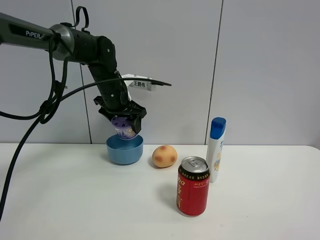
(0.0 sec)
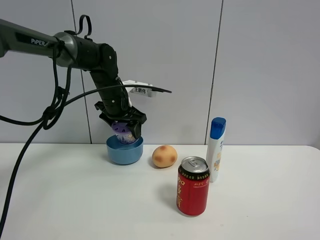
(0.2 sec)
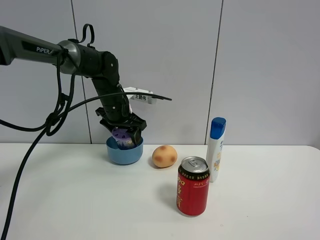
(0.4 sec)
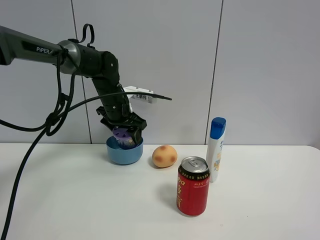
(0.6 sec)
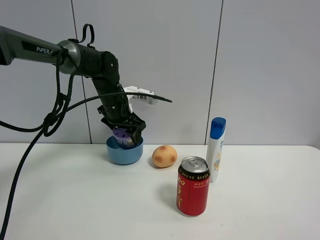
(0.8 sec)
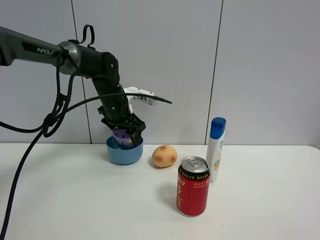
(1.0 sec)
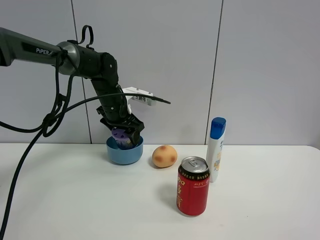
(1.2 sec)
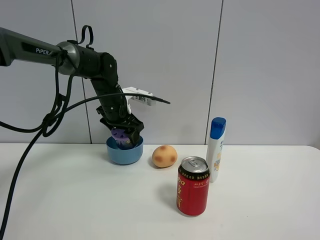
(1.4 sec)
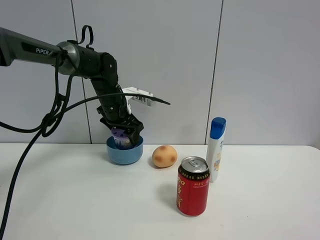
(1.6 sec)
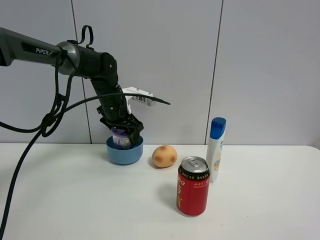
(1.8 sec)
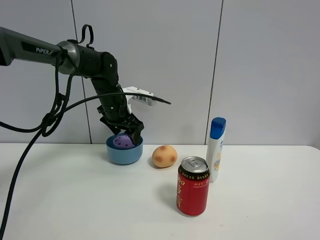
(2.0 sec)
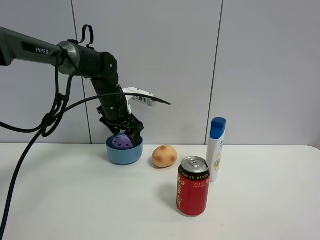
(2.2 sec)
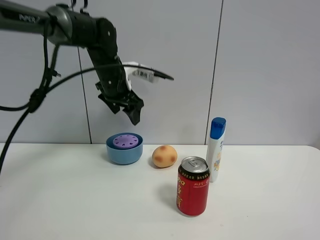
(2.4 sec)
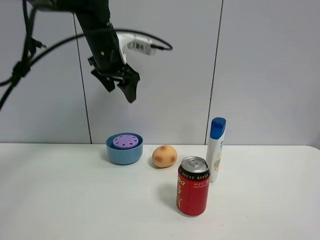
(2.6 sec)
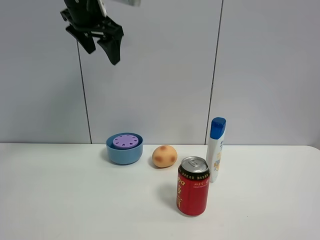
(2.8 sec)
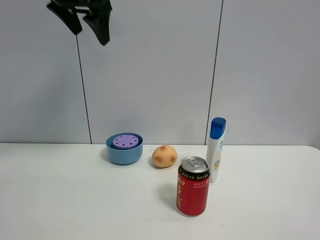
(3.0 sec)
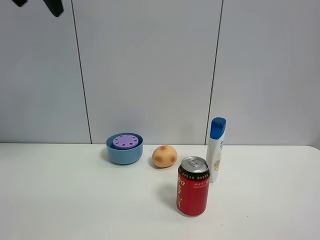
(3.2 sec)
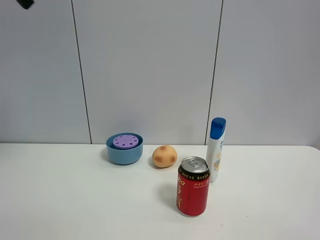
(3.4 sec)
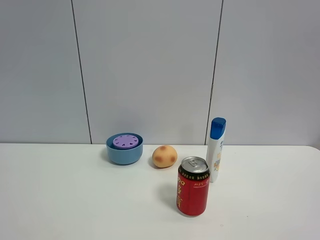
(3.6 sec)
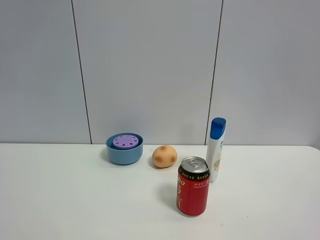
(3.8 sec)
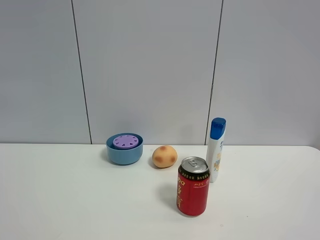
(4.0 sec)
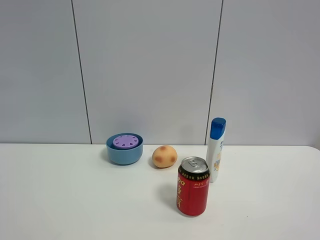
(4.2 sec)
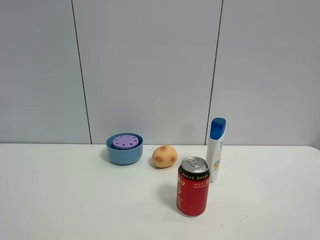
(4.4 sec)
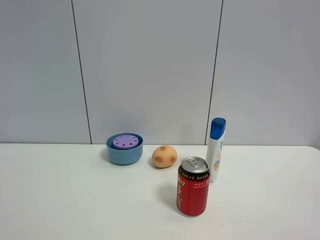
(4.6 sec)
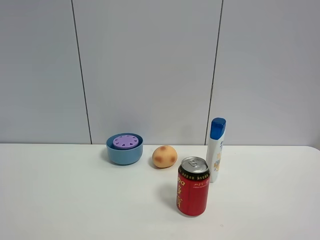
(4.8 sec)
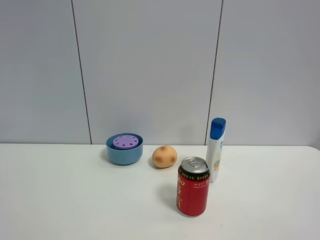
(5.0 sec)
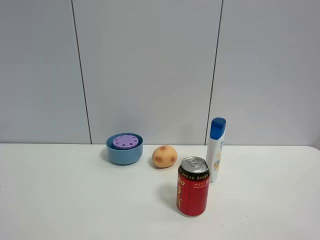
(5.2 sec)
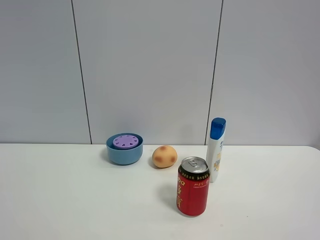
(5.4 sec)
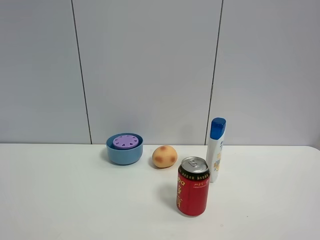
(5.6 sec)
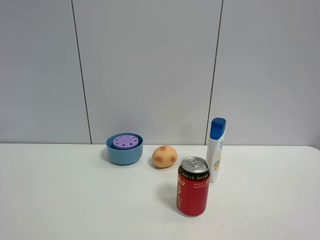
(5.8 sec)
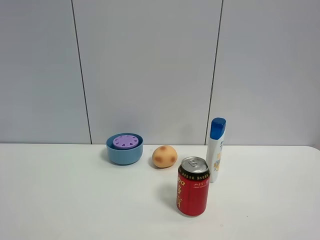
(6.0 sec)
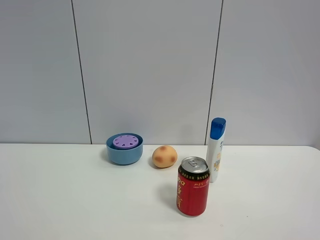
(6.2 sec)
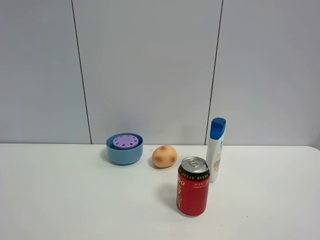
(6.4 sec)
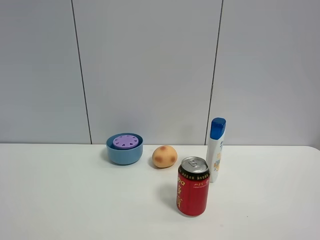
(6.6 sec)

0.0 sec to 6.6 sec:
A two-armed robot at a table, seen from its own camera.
Task of the whole recording: the gripper move the object.
Step, 0.0 sec to 2.0 sec: Place the blue bowl into the blue bowl with the left gripper.
0.0 sec to 1.6 sec: The grippers stay close to where they were, moving slightly.
1.6 sec to 3.2 sec: The left gripper is displaced upward and backward by some 35 cm.
3.2 sec to 5.0 sec: The left gripper travels backward and downward by about 40 cm.
5.0 sec to 6.6 sec: Both grippers stay about where they are.

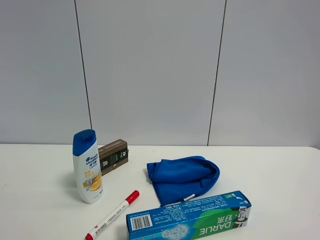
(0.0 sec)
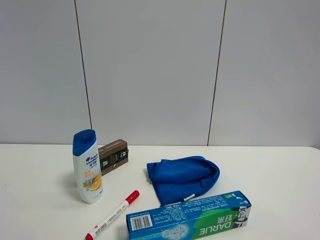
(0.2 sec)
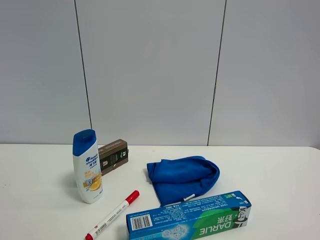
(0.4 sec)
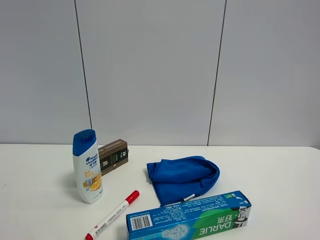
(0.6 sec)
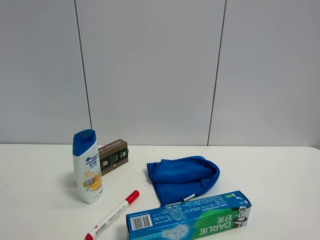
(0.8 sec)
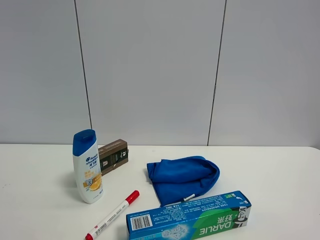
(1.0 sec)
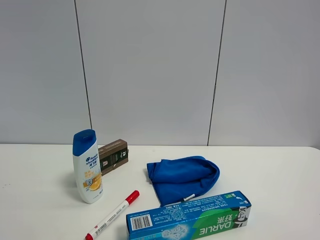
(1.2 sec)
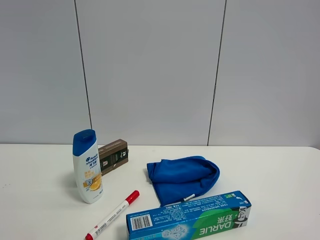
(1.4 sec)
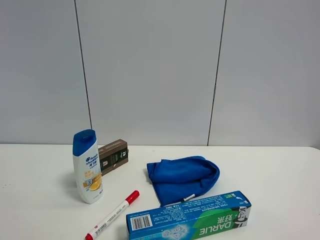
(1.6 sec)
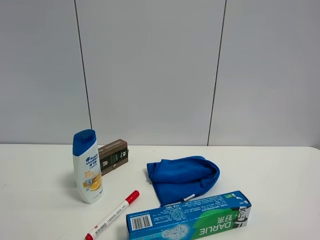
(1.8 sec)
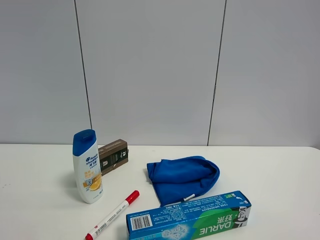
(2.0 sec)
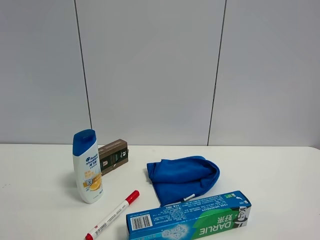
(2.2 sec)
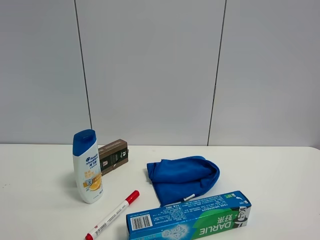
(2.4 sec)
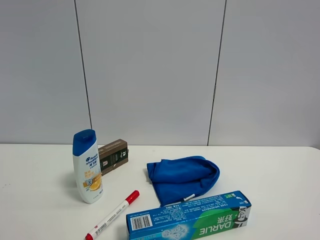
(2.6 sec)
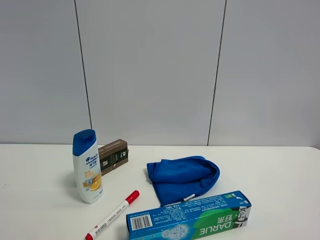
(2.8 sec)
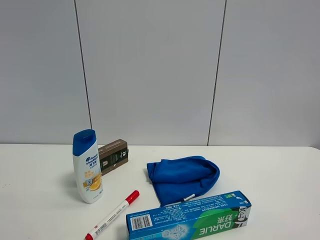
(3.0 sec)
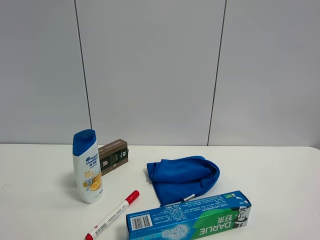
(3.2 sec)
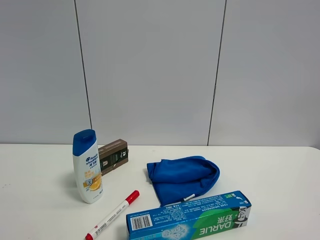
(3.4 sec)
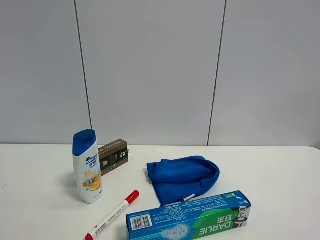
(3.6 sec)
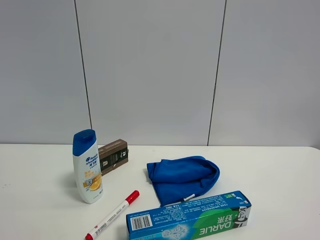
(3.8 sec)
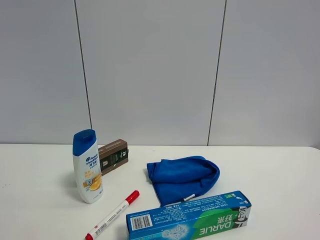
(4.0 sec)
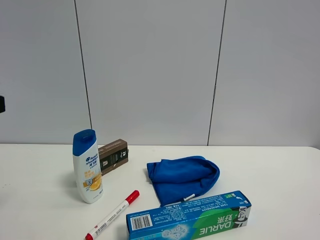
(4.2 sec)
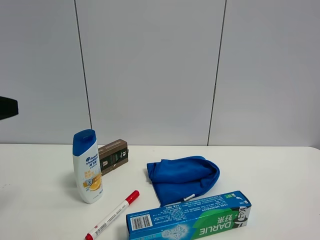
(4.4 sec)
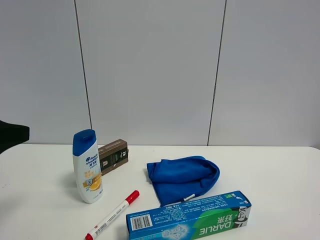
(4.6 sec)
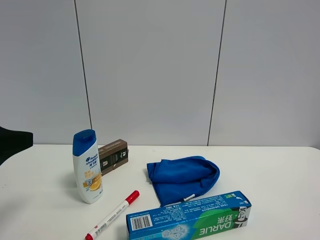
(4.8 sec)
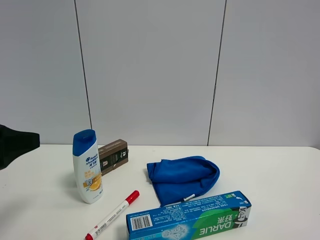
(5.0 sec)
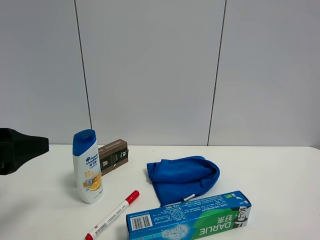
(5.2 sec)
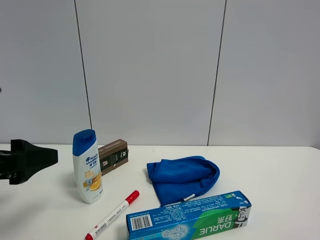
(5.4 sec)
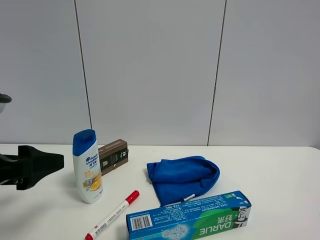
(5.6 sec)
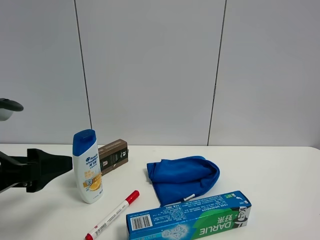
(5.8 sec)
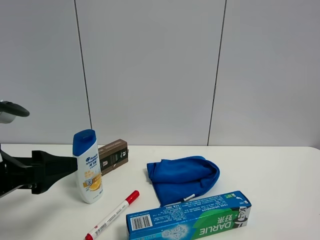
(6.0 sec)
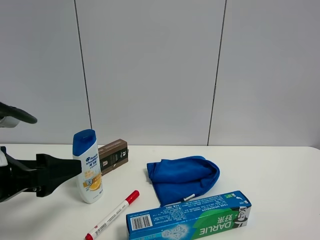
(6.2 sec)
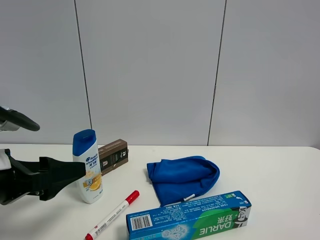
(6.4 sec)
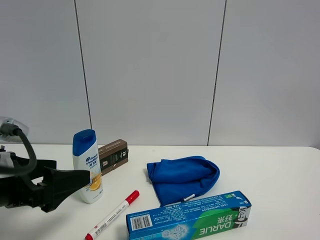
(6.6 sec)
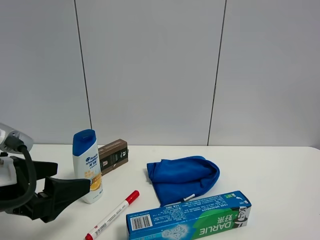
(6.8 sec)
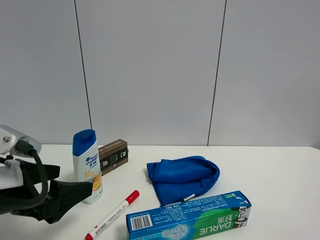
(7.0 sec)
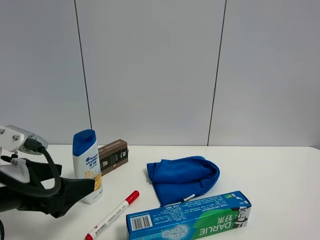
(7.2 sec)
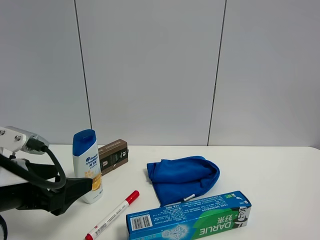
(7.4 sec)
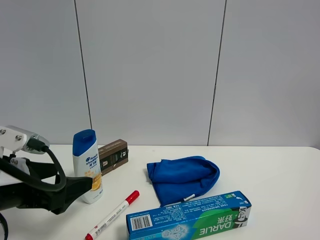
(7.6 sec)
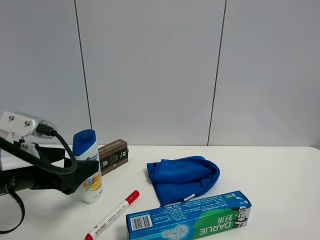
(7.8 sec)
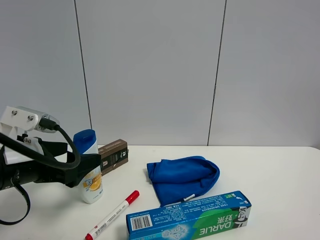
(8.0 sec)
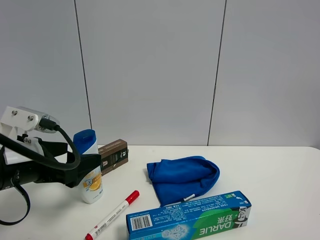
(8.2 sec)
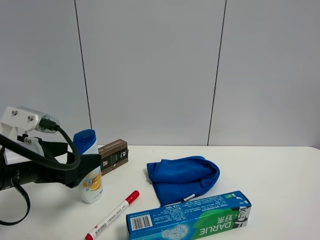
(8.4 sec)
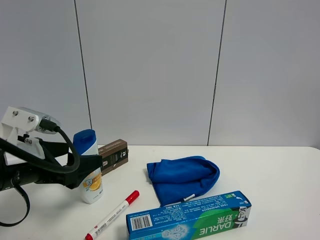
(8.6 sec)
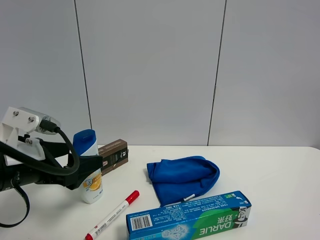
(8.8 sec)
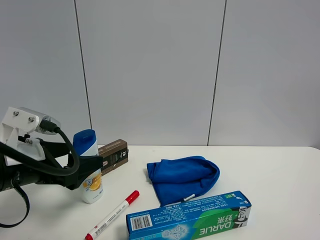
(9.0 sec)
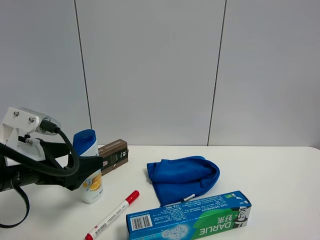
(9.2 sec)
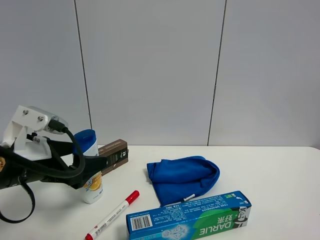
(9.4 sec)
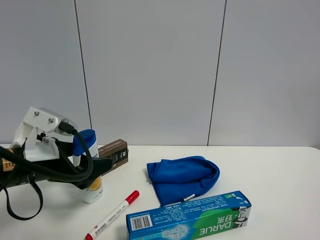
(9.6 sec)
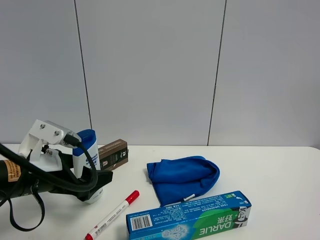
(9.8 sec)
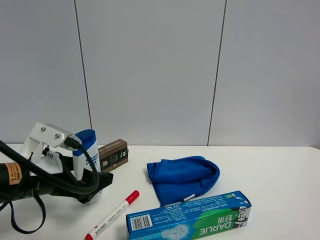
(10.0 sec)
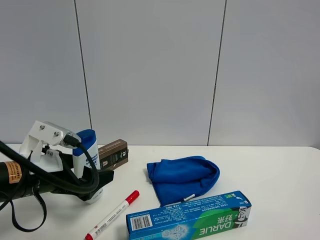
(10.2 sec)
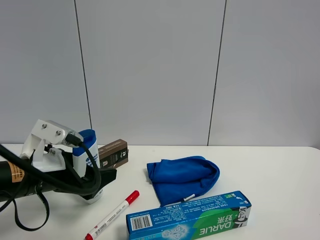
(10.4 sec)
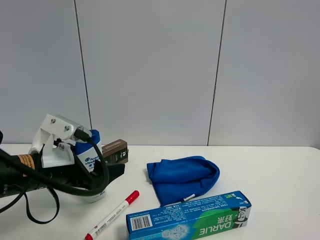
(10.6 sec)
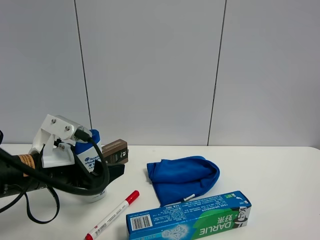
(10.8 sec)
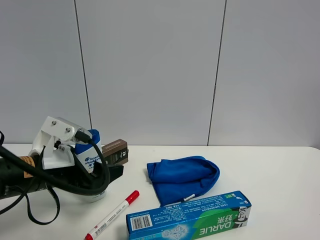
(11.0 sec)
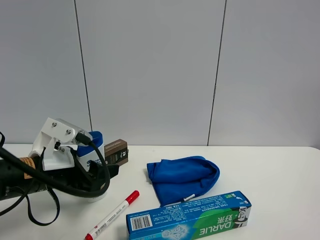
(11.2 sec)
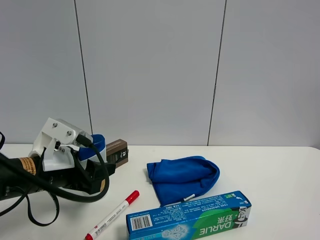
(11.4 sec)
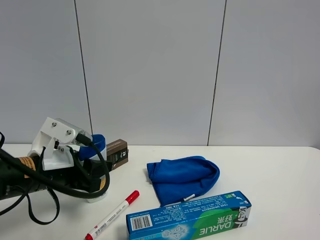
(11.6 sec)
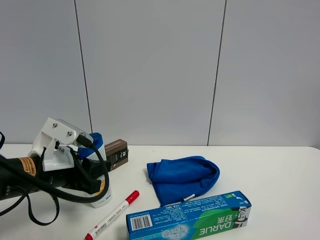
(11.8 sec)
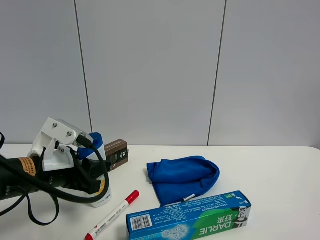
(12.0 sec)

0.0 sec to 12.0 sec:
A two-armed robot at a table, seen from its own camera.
Task of the whole recording: the gripper move the object.
Step, 0.0 sec to 11.6 sec: Grasp the shampoo with the left gripper.
4.4 sec to 6.0 sec: The left gripper shifts approximately 10 cm downward.
6.0 sec to 9.0 sec: The grippers make only small movements.
9.0 sec to 10.4 sec: There are only small adjustments of the grippers.
10.4 sec to 12.0 sec: The left gripper closes its fingers.

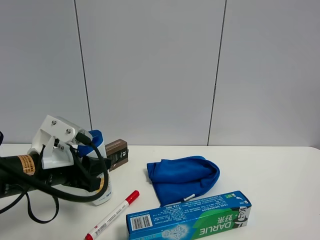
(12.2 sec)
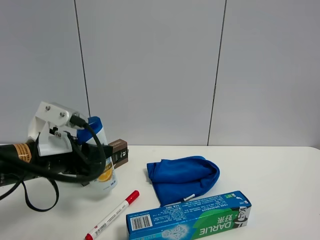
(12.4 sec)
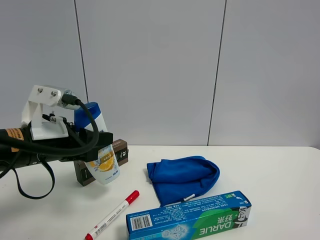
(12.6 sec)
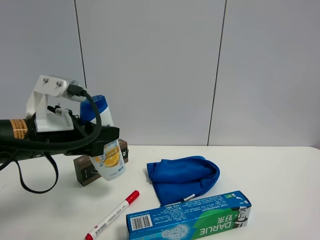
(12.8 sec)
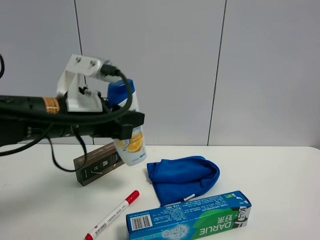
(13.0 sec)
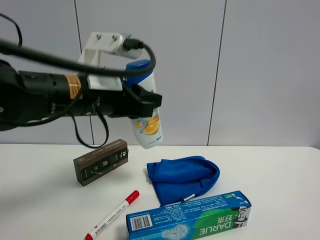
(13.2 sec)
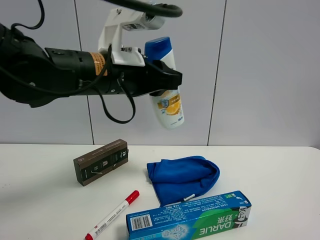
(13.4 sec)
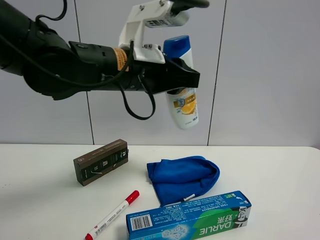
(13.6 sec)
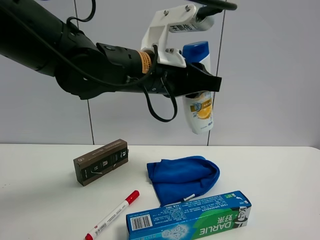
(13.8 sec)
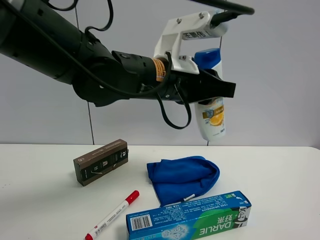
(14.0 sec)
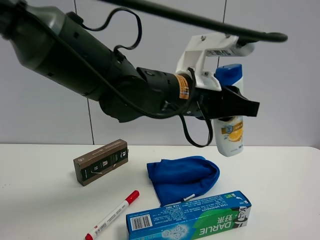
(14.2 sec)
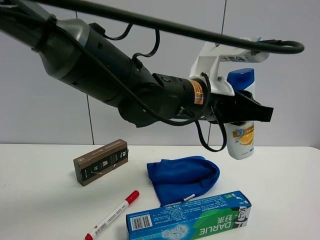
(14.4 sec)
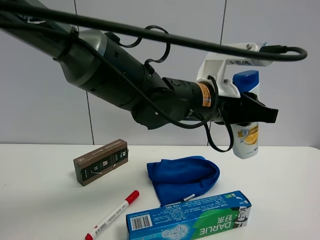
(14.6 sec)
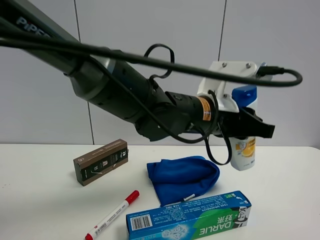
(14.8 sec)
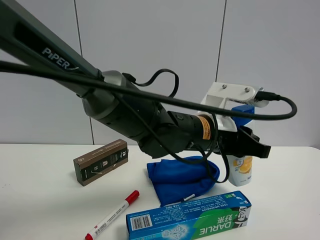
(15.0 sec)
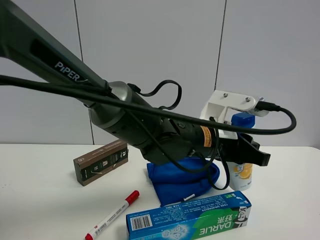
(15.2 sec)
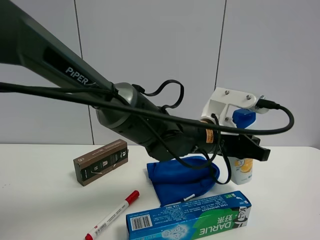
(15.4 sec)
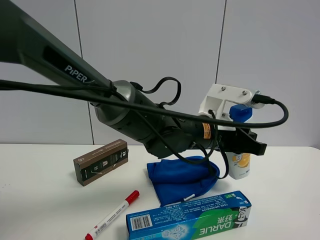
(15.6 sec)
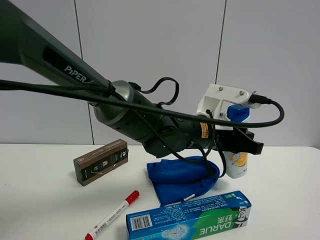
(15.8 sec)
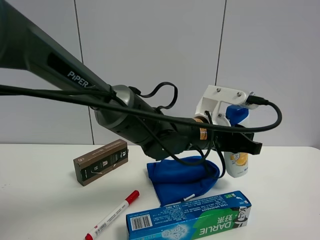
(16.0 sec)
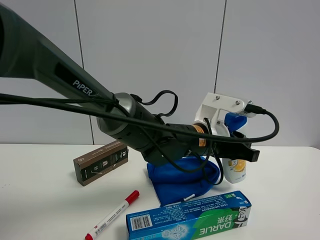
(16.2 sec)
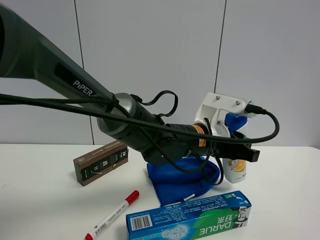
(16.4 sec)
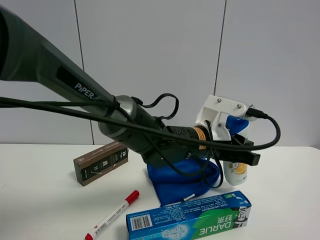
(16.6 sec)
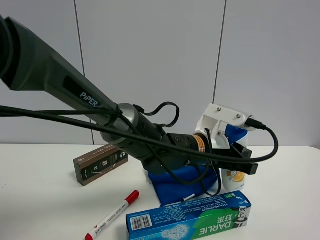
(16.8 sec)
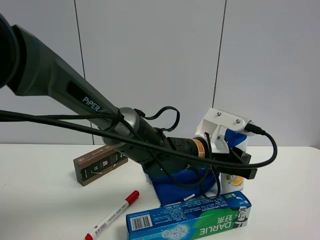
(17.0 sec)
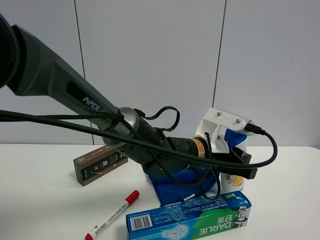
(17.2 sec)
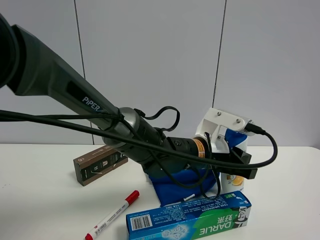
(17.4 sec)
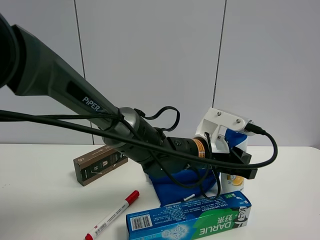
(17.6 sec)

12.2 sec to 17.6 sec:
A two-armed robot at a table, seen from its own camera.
Task of the whole recording: the gripper move the object.
12.2 sec to 13.6 sec: The left gripper travels to the right and upward by roughly 20 cm.
13.6 sec to 15.0 sec: The left gripper goes about 15 cm to the right and downward.
15.0 sec to 17.6 sec: The grippers make only small movements.
